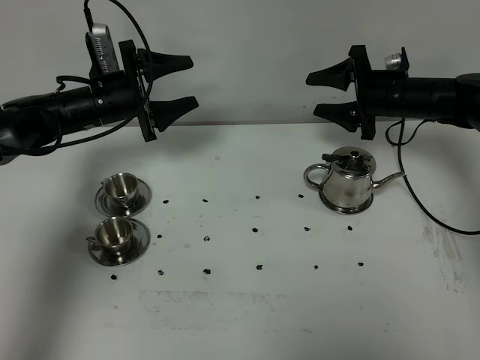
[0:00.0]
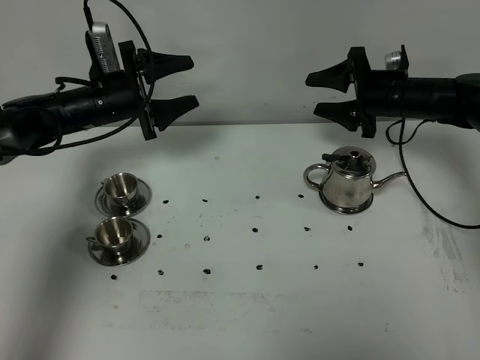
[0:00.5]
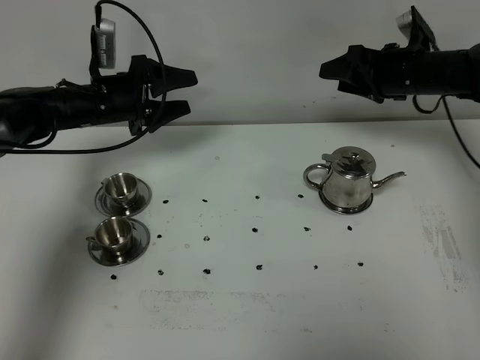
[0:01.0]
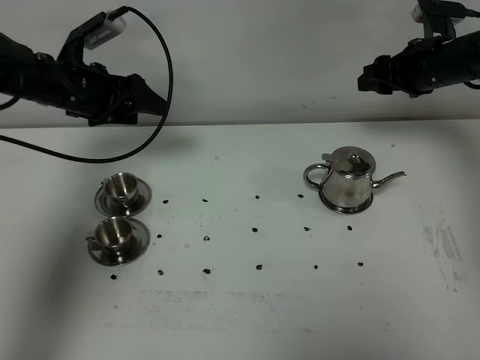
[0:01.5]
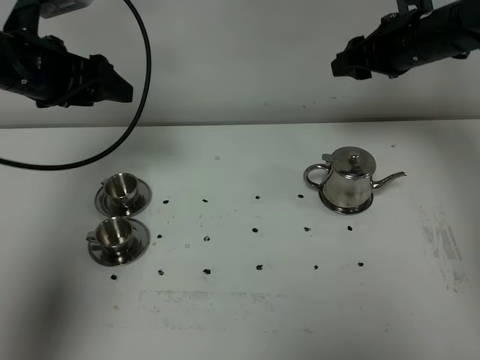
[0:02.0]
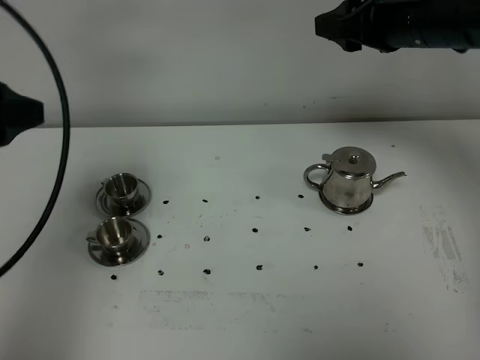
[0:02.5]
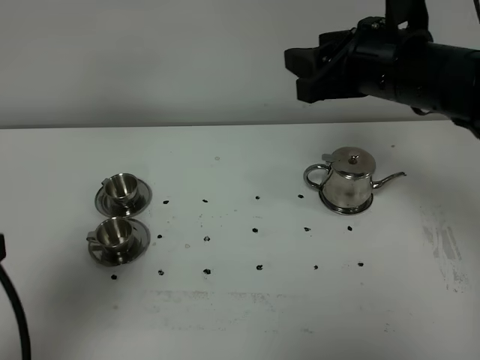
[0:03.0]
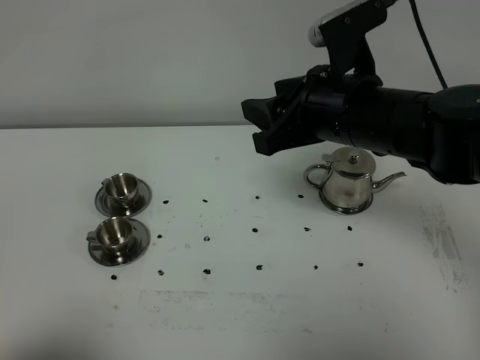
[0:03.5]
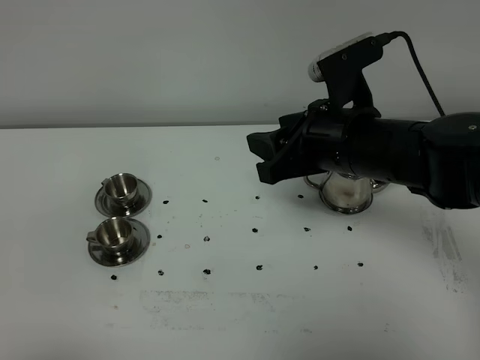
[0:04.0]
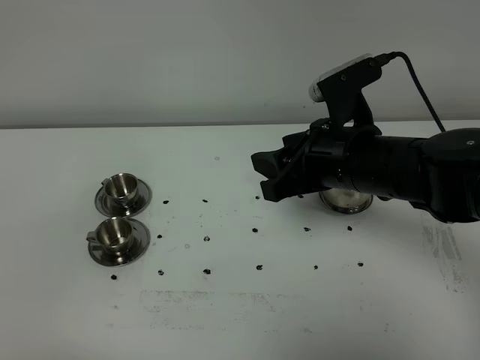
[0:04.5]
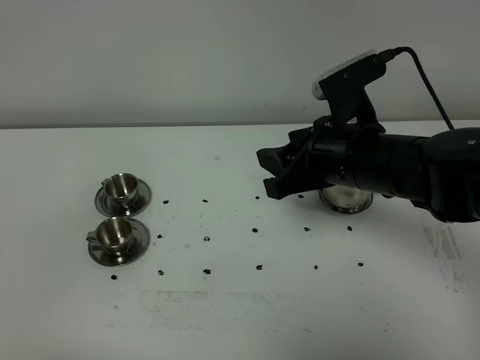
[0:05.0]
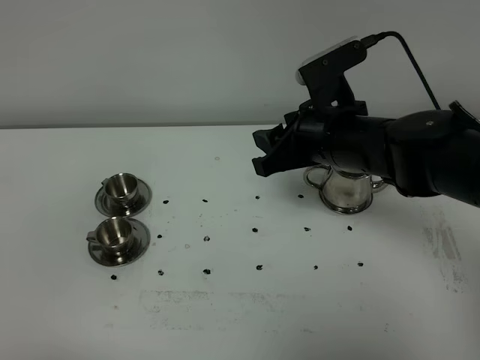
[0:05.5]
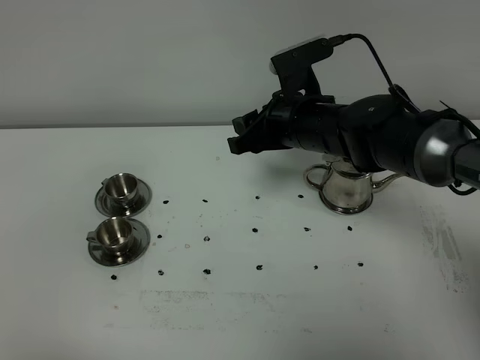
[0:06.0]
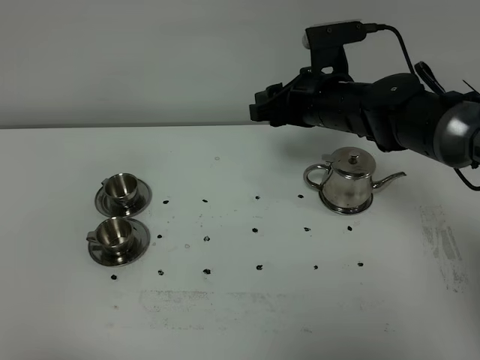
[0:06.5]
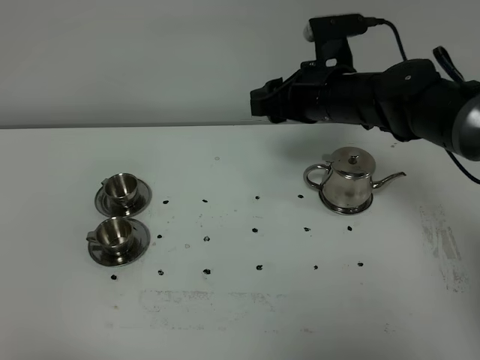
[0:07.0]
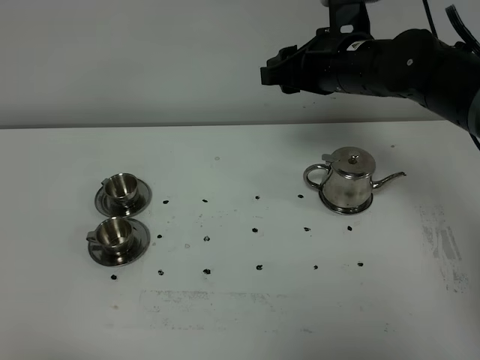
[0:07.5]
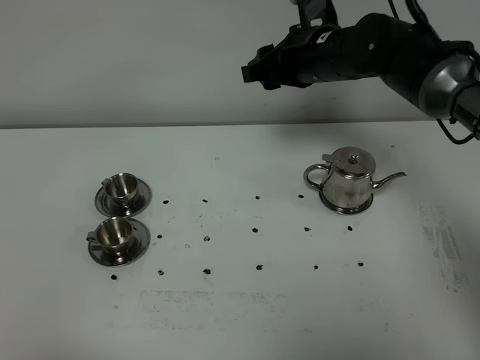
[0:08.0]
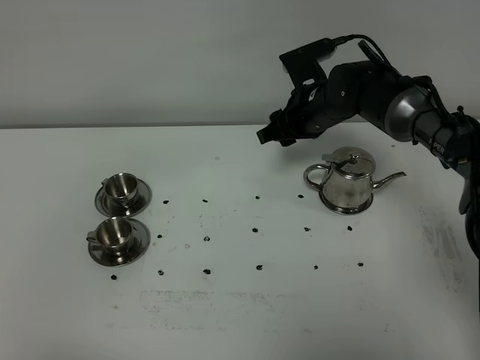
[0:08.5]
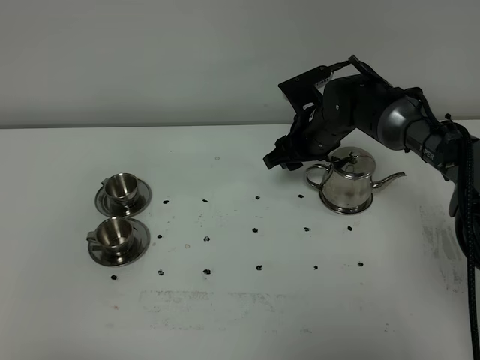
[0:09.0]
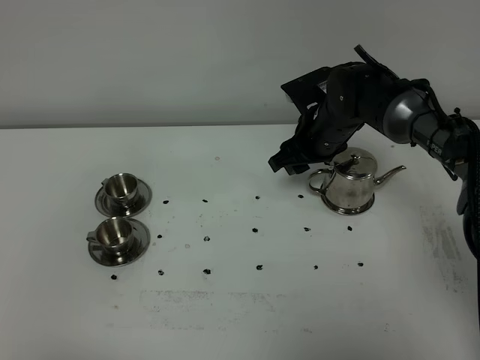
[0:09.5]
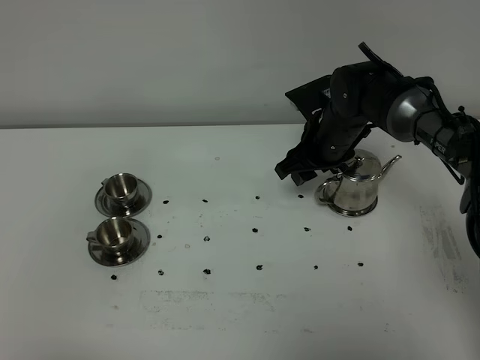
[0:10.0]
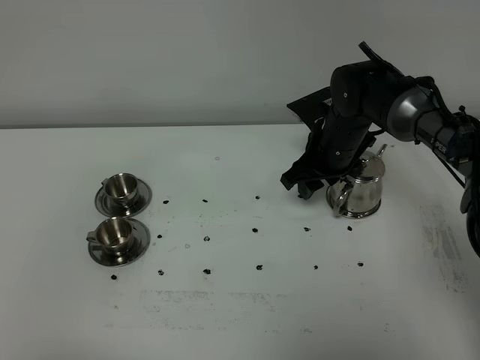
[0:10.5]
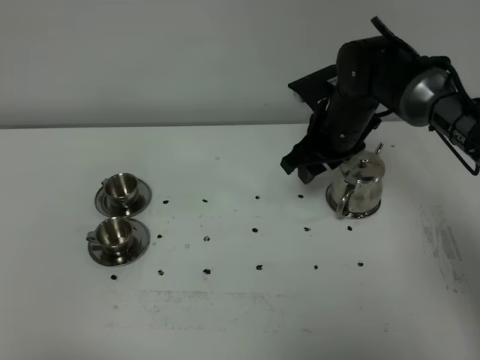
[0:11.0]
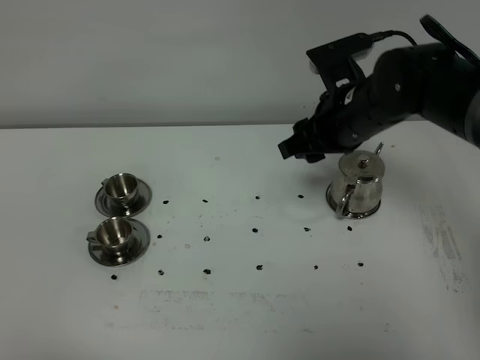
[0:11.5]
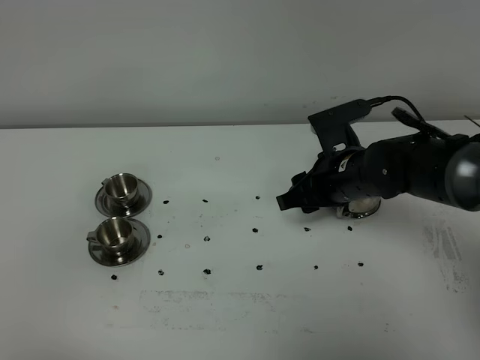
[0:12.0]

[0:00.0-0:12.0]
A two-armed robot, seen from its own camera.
Task of the whole recording: grasp the stainless steel teapot and pour the tea into the two stainless steel teacups one by one, put the stainless steel teapot back in its original place.
0:00.0 to 0:02.0: The right gripper goes roughly 10 cm upward. Meanwhile the left gripper goes some 15 cm upward and backward.
0:02.0 to 0:04.0: The right gripper is displaced backward and to the left by about 20 cm; the left gripper goes some 40 cm backward.
0:04.0 to 0:06.0: The right gripper shifts some 10 cm forward.
0:06.0 to 0:08.0: The right gripper moves forward, roughly 5 cm.
0:08.0 to 0:10.0: The right gripper is displaced downward by approximately 10 cm.
0:10.0 to 0:12.0: The right gripper moves backward, about 10 cm.

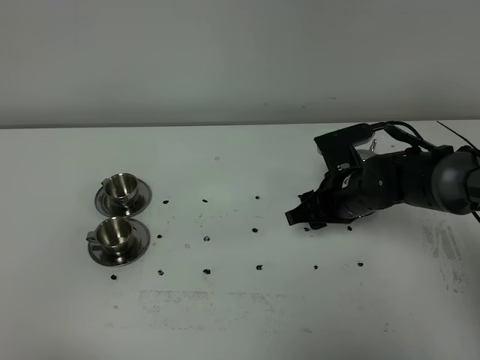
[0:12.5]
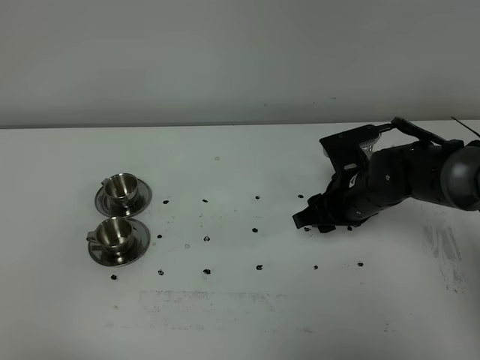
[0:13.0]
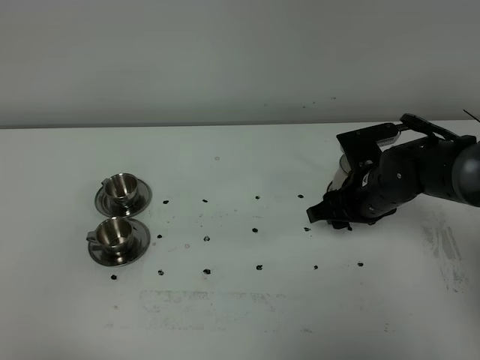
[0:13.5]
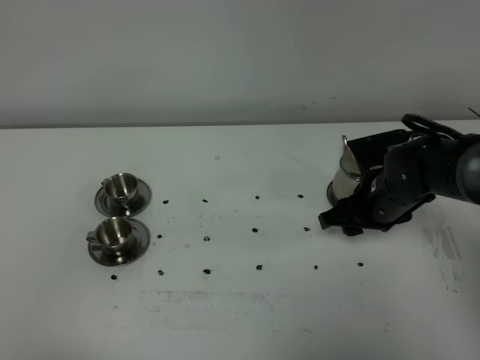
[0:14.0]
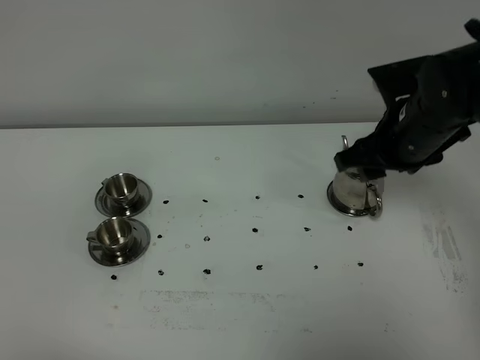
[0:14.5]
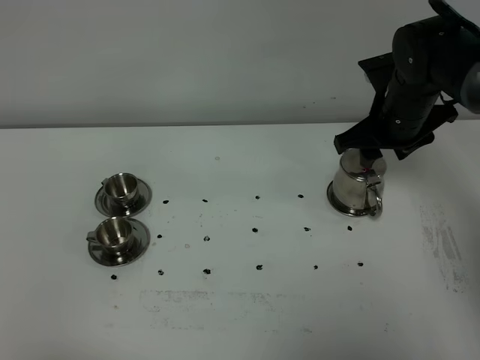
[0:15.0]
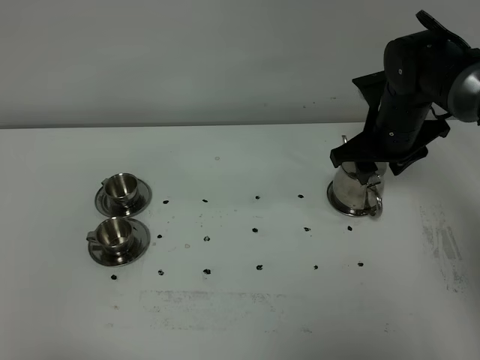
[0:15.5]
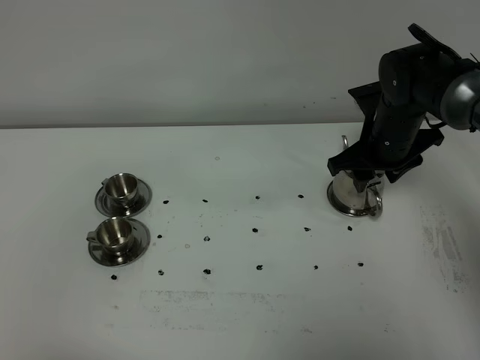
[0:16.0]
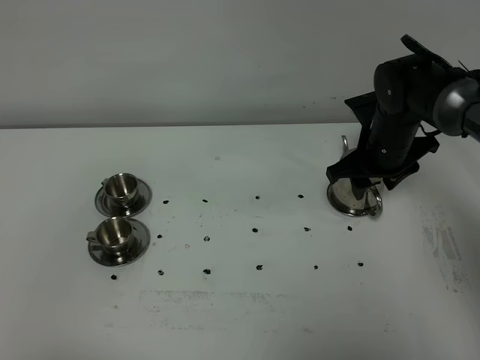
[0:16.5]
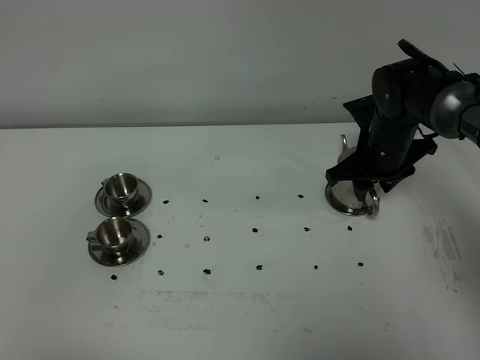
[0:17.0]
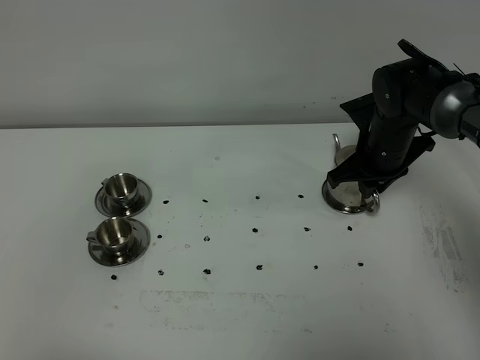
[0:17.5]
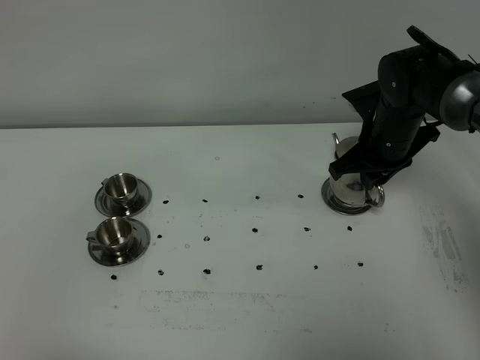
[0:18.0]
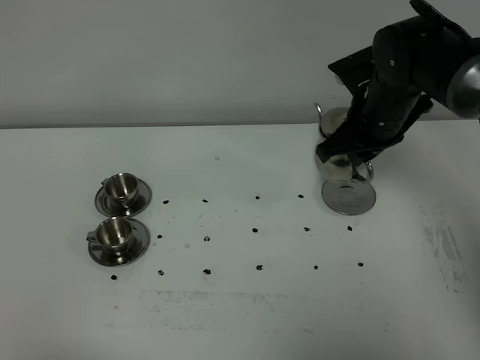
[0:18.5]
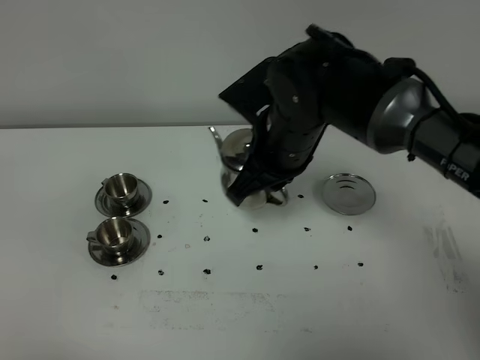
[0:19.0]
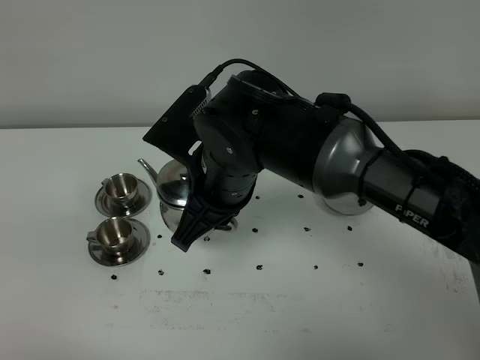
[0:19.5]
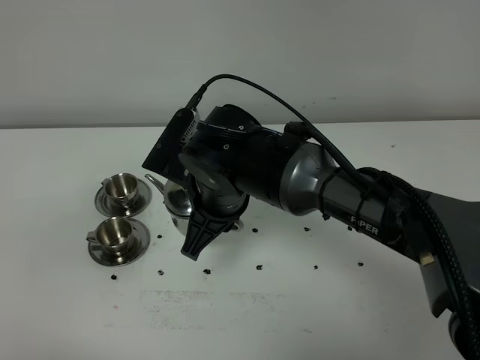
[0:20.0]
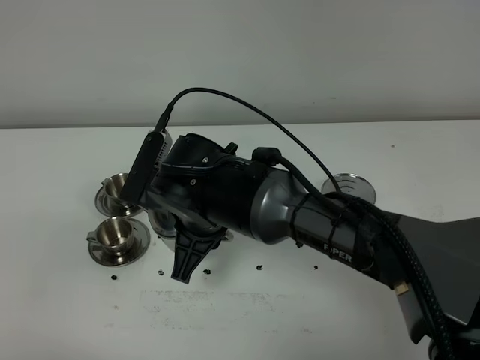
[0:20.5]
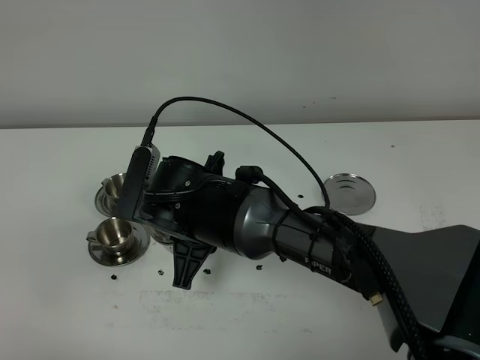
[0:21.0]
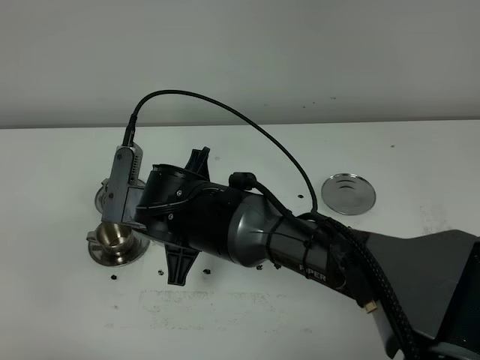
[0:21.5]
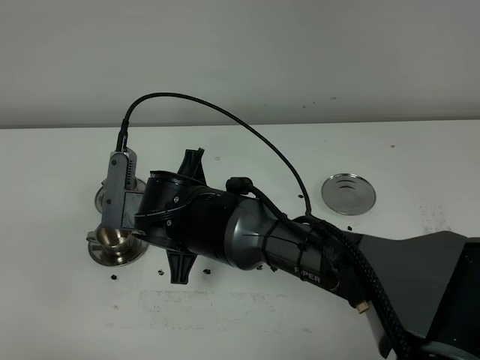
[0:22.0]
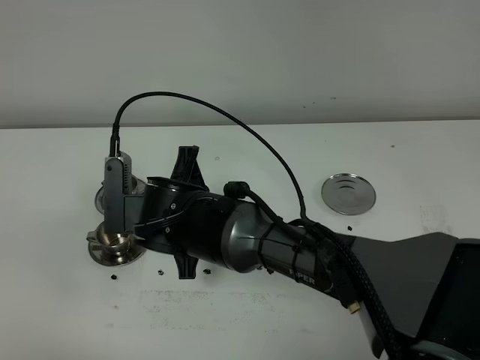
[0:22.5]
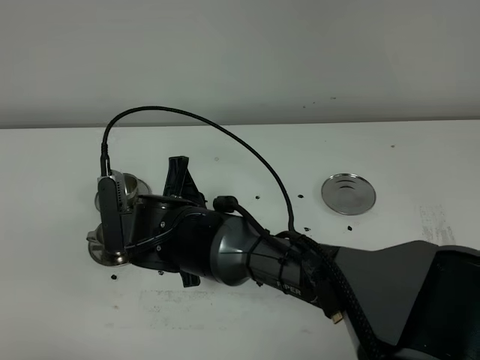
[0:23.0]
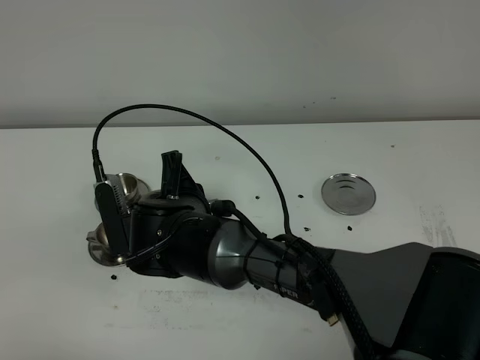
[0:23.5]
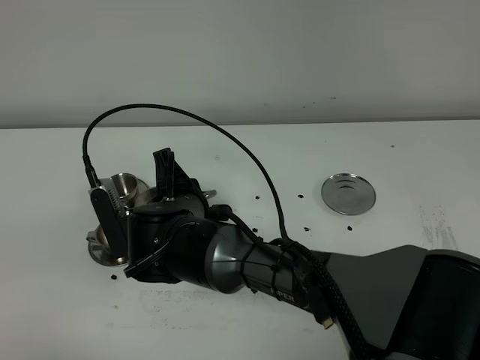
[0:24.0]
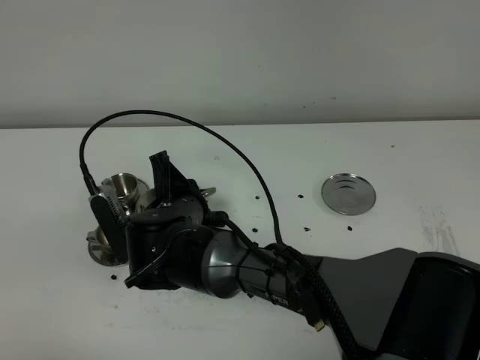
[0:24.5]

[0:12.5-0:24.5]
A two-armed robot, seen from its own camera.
Task of the whole recording: grasp the stainless steel teapot and pour the tea into the two stainless steel teacups one by one, put the stainless steel teapot back in its original place.
Step, 0:12.5 to 0:18.0: Pick up the teapot with the right gripper.
0:12.5 to 0:14.5: The right gripper shifts some 15 cm upward.
0:14.5 to 0:16.5: The right gripper travels downward and forward by roughly 10 cm.
0:16.5 to 0:18.5: The right gripper moves upward, approximately 10 cm, and closes up.
0:18.5 to 0:20.5: The right gripper goes approximately 25 cm to the left and backward.

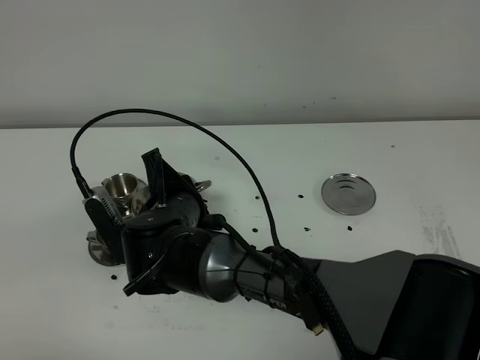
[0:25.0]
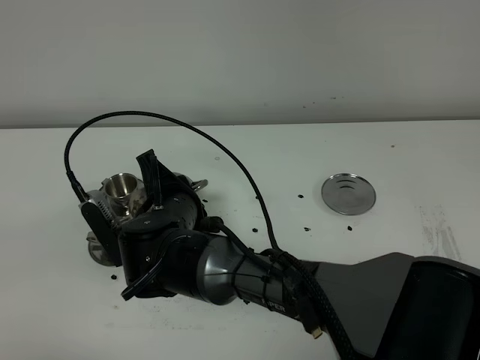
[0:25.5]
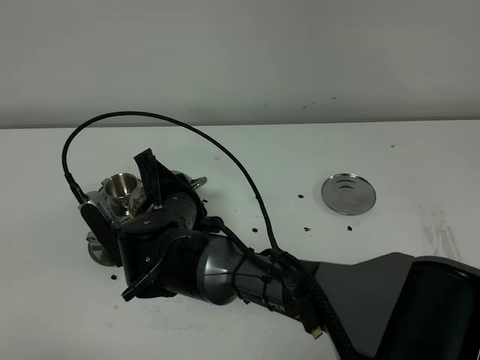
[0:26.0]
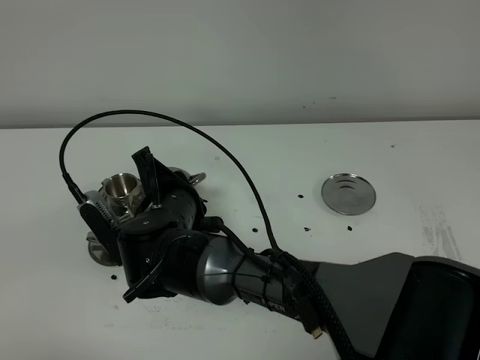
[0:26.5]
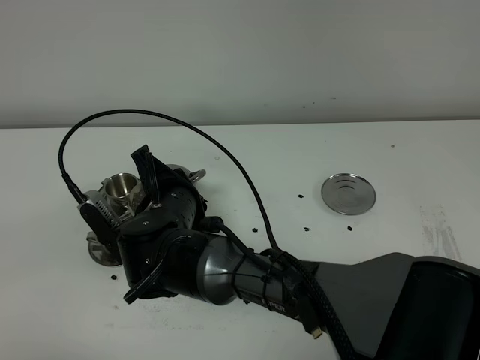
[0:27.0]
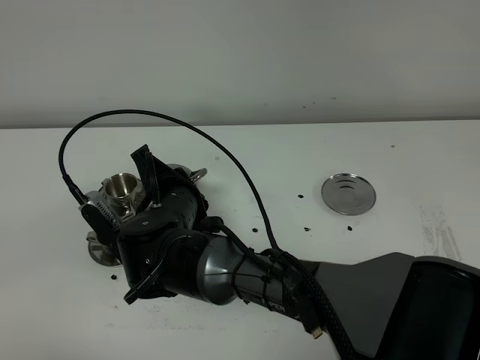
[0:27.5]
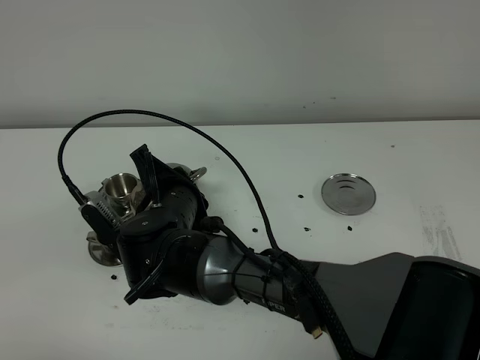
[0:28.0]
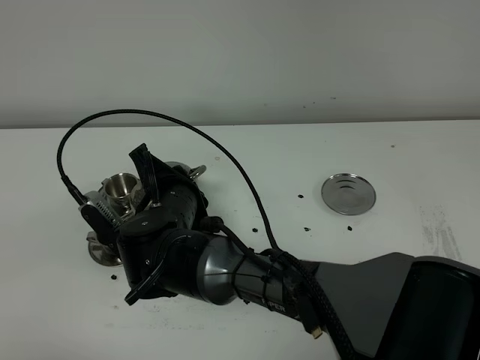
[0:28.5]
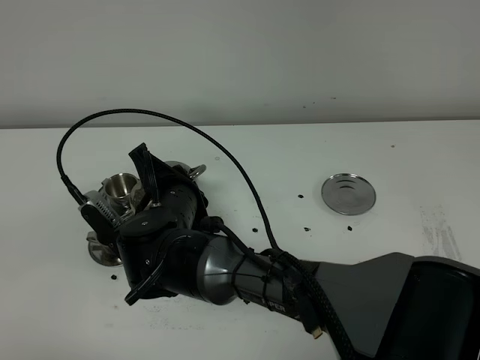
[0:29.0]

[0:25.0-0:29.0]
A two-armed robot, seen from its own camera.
Task of the whole recording: grasp the stainless steel teapot and pour the tea into the two stainless steel teacups one by one, put the stainless steel teapot back in its original place.
0:25.0 to 0:27.0: The grippers stay close to where they were, moving slightly.
0:27.0 to 0:29.0: The two grippers keep their place.
